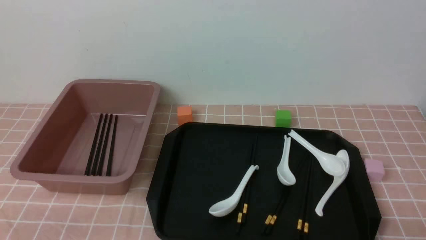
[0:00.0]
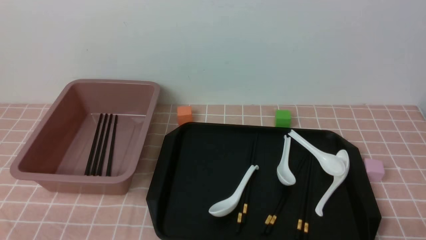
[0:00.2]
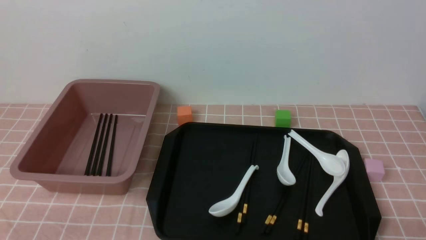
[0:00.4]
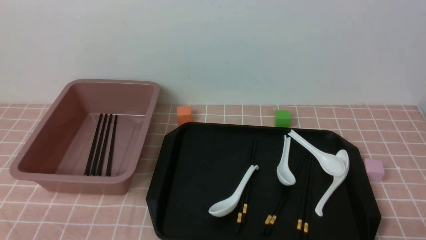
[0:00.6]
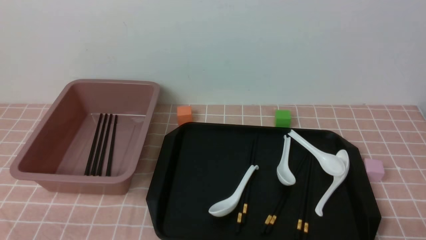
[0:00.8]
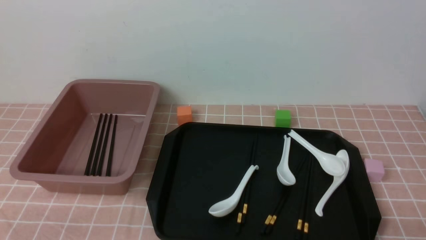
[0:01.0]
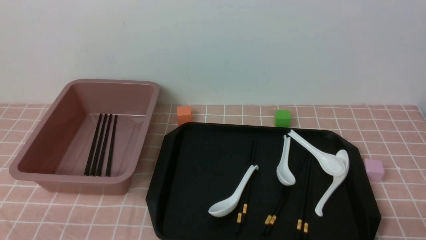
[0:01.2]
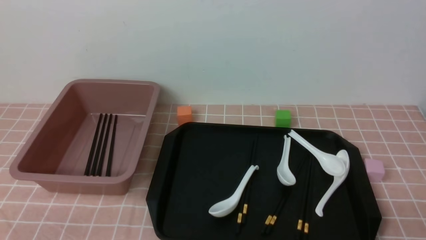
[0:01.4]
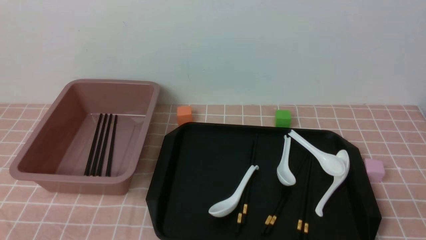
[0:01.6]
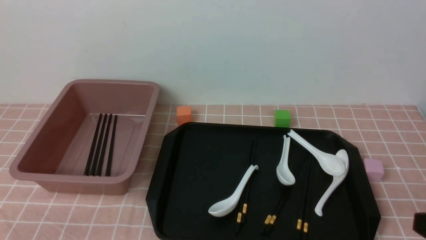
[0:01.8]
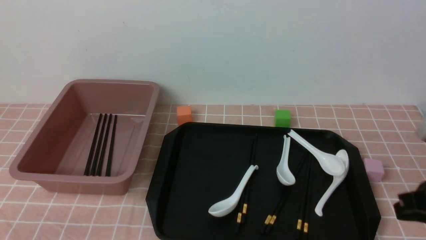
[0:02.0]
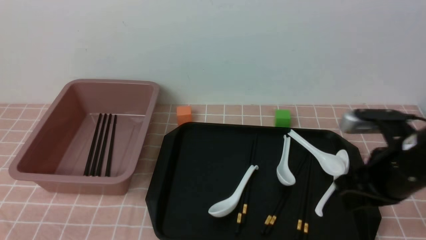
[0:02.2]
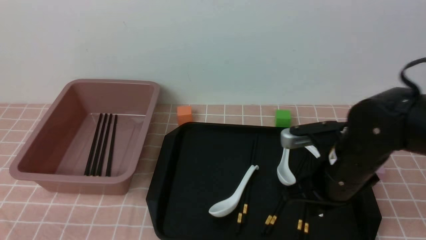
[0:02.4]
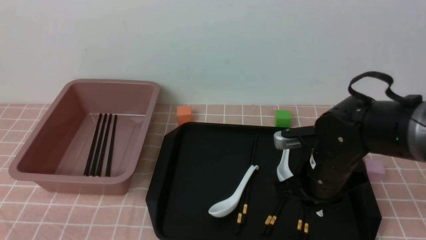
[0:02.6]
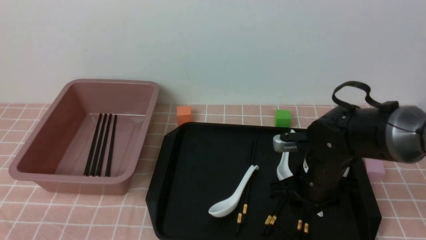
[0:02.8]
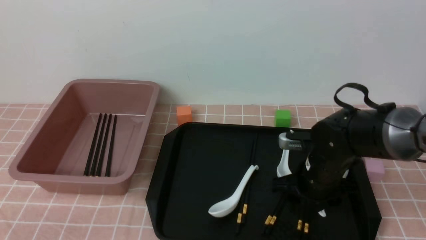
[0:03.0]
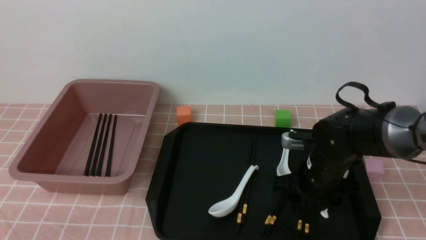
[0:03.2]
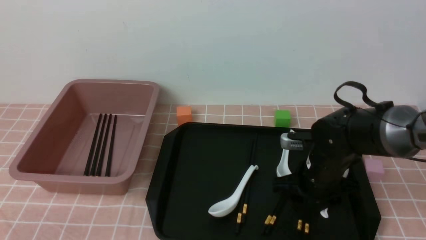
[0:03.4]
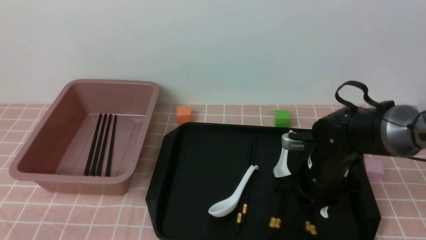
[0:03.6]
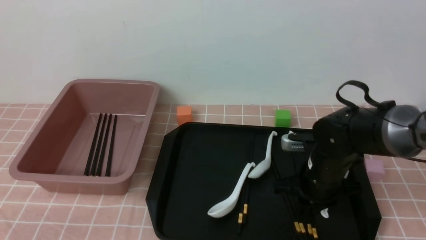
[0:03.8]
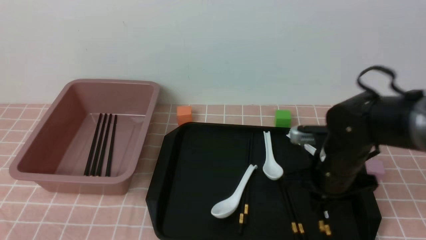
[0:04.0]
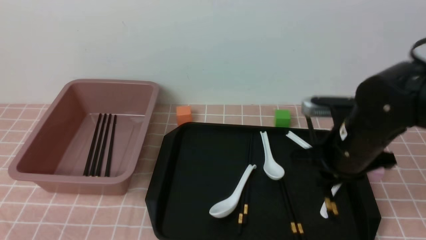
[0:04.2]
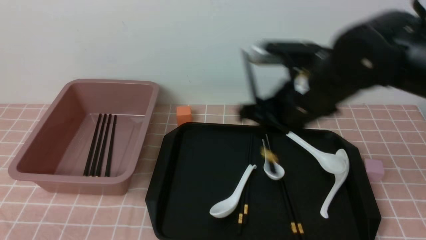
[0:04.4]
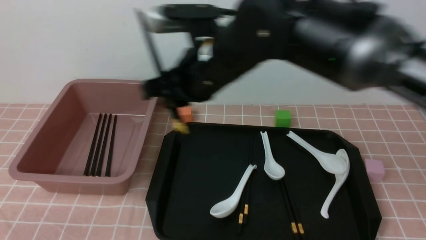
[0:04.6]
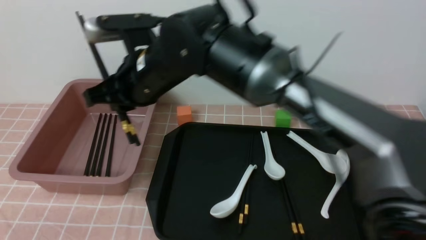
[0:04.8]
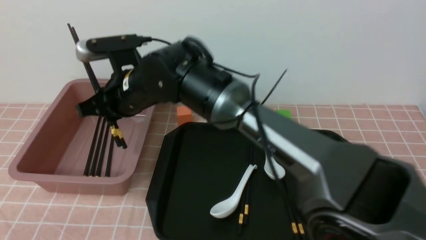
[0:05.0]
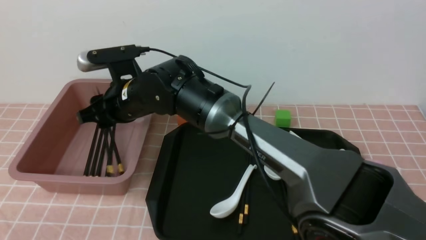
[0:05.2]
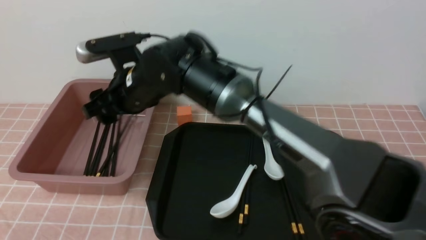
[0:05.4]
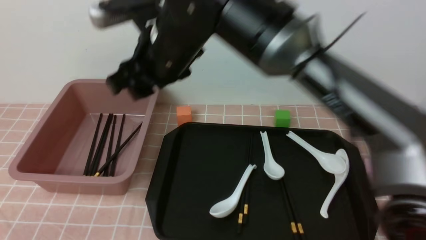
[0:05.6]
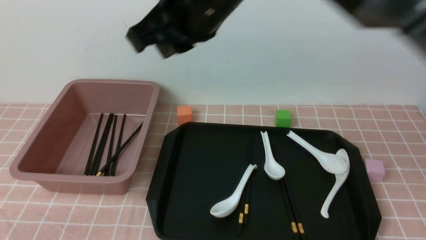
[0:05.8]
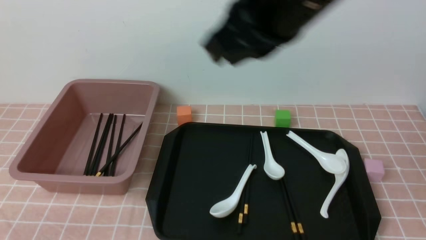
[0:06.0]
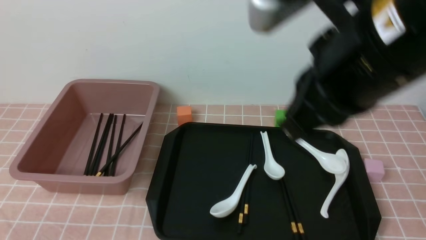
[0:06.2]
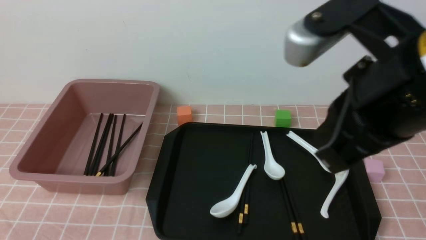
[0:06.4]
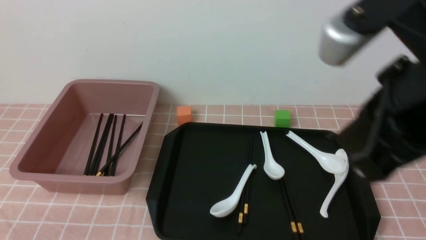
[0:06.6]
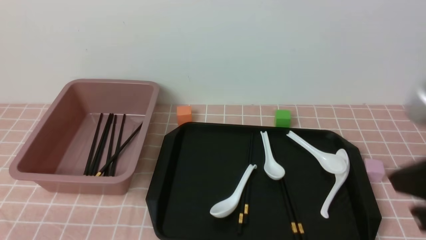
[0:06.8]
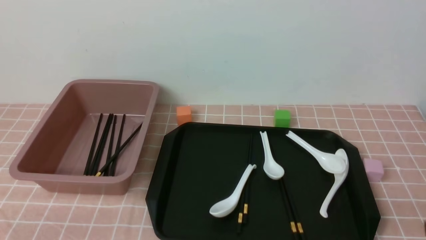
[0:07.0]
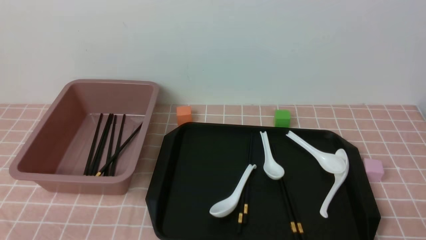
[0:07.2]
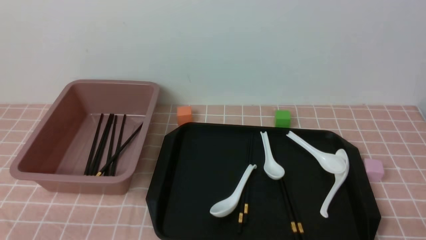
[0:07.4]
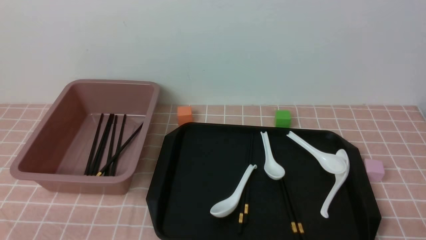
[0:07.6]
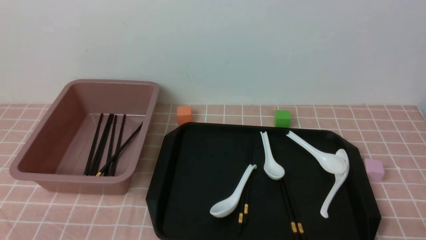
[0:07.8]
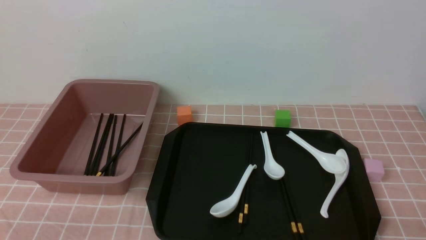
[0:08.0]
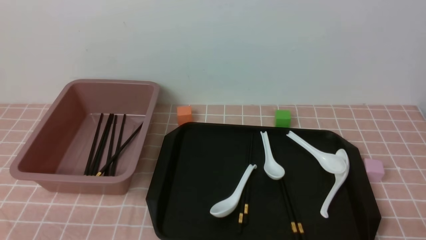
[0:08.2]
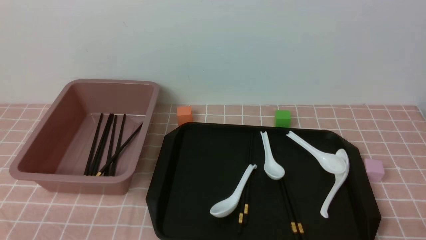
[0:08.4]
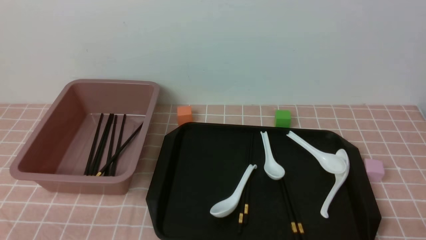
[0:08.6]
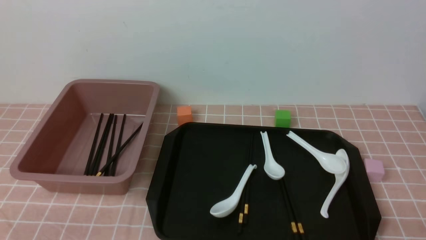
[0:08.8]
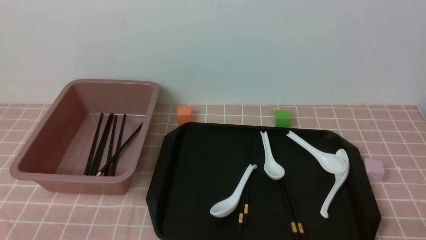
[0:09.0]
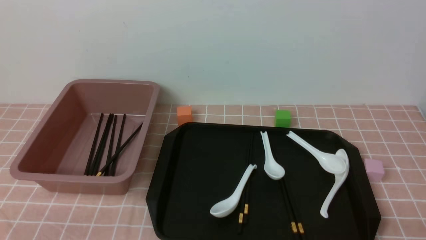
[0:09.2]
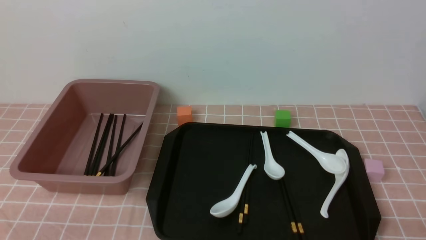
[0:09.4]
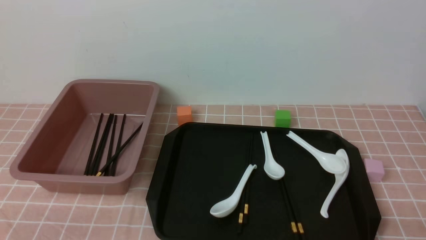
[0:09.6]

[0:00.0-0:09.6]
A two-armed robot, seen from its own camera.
Step, 0:00.0 to 0:04.0: use the right arm to grab a pair of chopsticks.
Step, 0:04.2 to 0:05.4: use the right arm to put the chopsticks into the lunch box.
0:01.6 to 0:03.2: The right gripper is displaced forward and to the left by about 30 cm, and opens up.
0:03.2 to 0:04.8: The right gripper shifts roughly 30 cm to the left and upward, and closes its fingers.
0:04.8 to 0:06.4: The right gripper travels to the right, backward and upward by about 30 cm, and closes up.
0:06.4 to 0:08.0: The right gripper heads downward, to the right and backward, covering approximately 30 cm.
0:08.0 to 0:09.6: Both grippers stay put.
